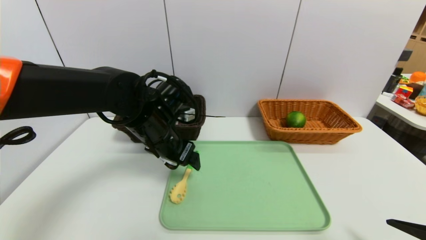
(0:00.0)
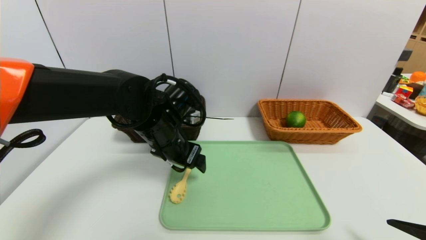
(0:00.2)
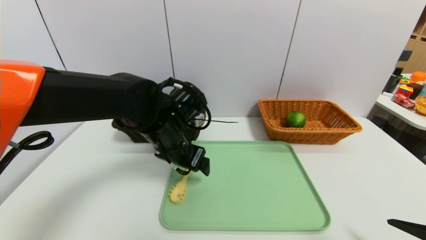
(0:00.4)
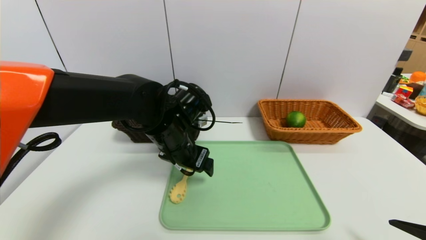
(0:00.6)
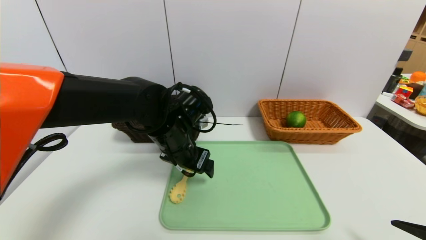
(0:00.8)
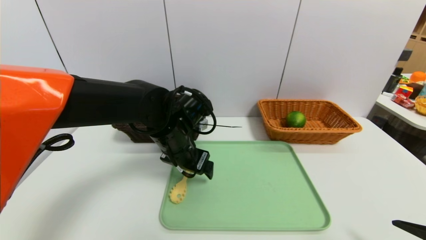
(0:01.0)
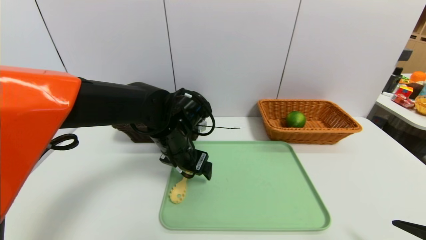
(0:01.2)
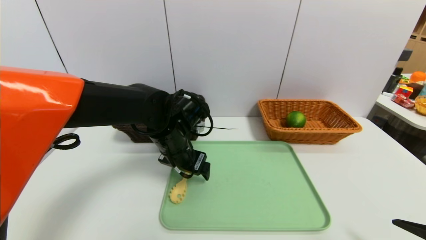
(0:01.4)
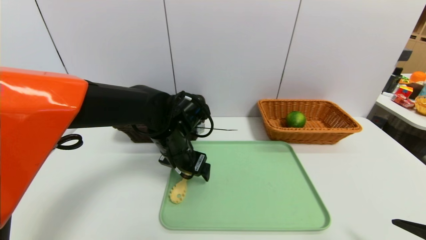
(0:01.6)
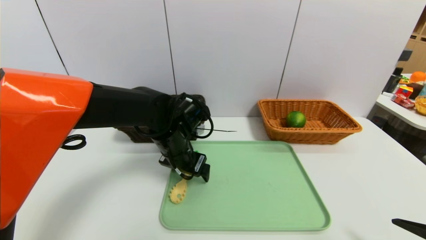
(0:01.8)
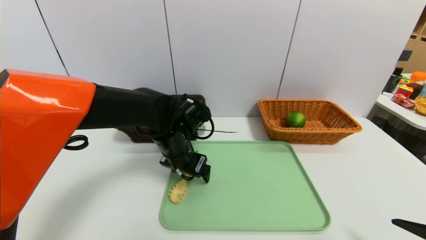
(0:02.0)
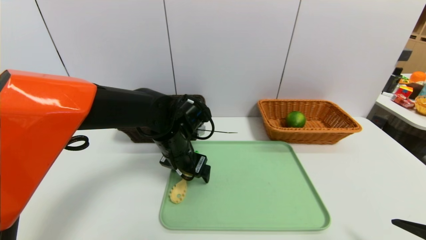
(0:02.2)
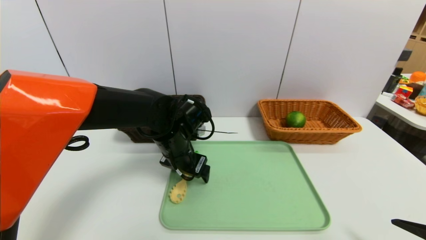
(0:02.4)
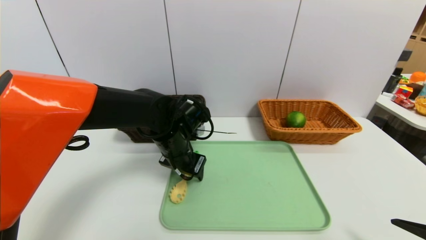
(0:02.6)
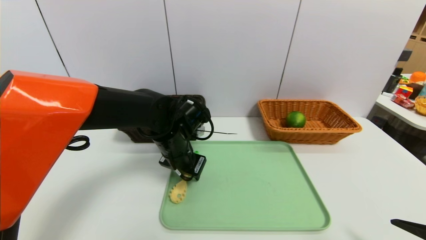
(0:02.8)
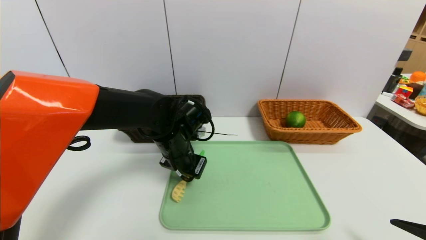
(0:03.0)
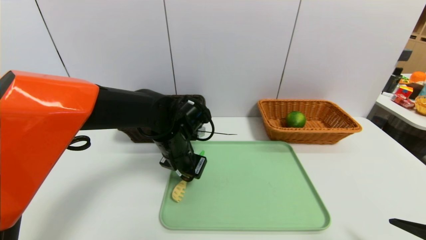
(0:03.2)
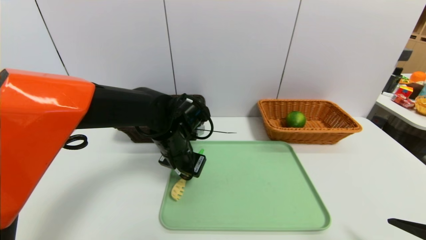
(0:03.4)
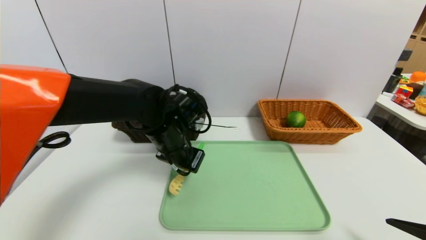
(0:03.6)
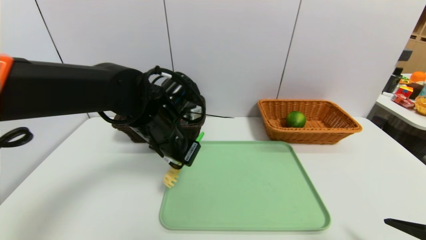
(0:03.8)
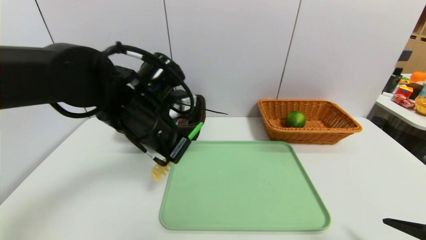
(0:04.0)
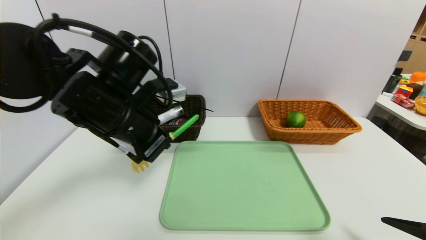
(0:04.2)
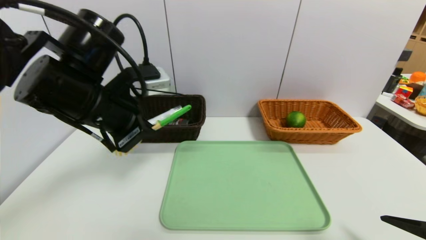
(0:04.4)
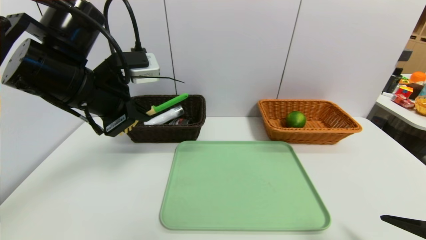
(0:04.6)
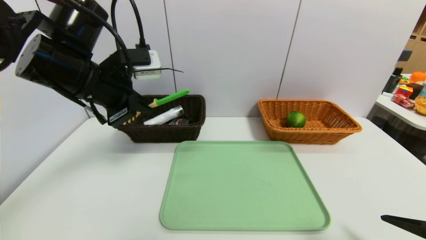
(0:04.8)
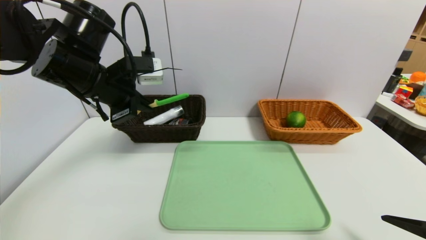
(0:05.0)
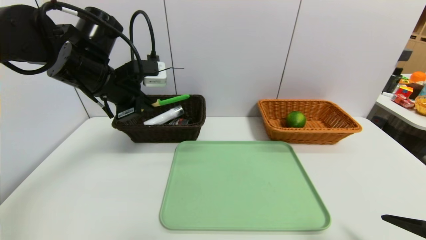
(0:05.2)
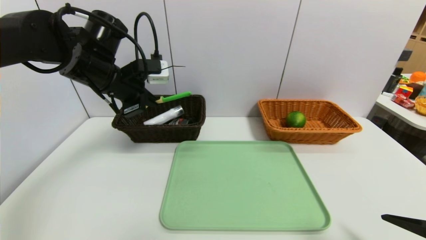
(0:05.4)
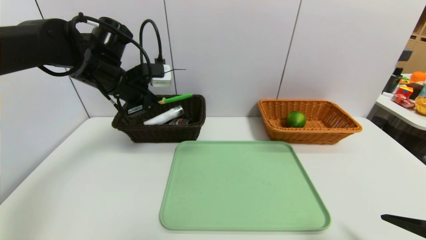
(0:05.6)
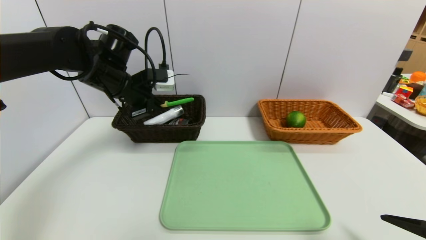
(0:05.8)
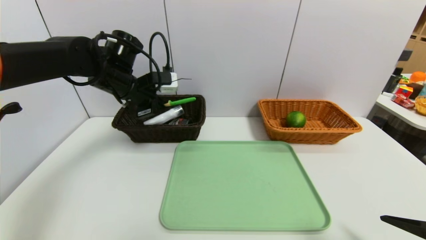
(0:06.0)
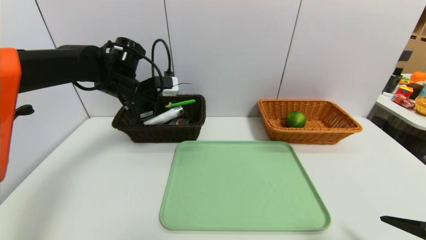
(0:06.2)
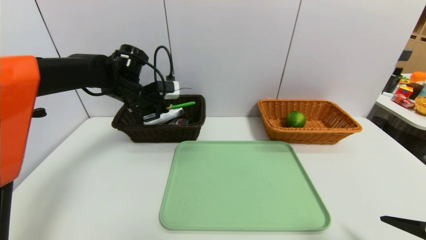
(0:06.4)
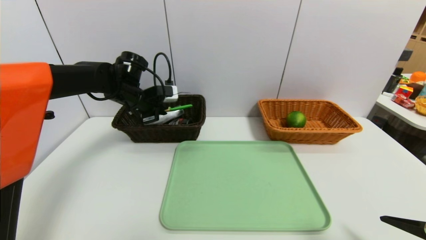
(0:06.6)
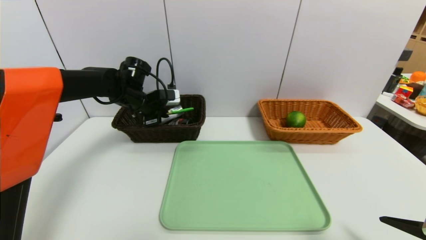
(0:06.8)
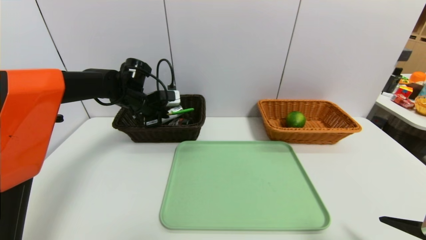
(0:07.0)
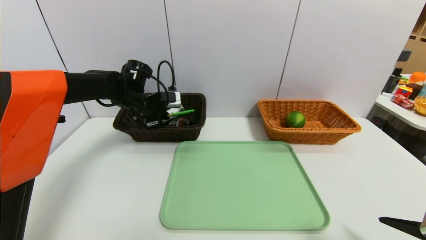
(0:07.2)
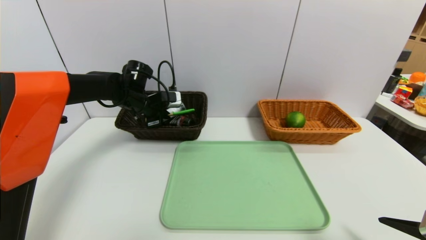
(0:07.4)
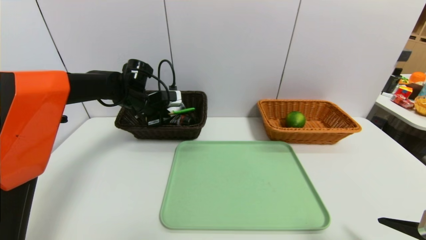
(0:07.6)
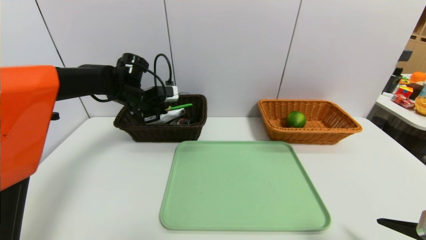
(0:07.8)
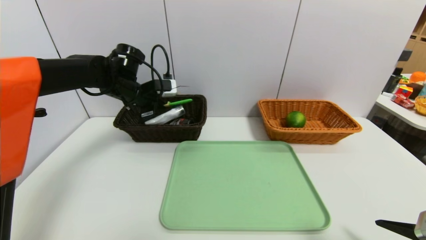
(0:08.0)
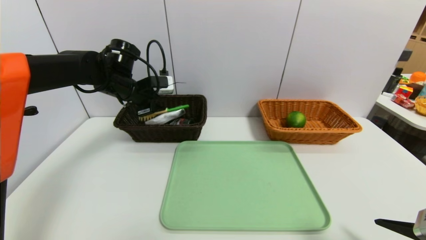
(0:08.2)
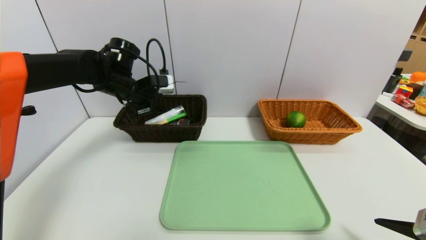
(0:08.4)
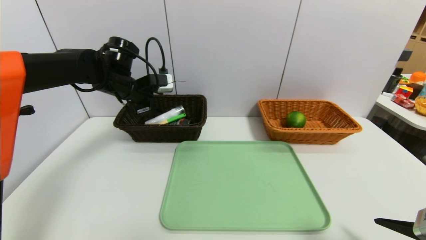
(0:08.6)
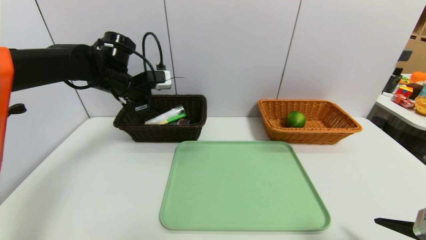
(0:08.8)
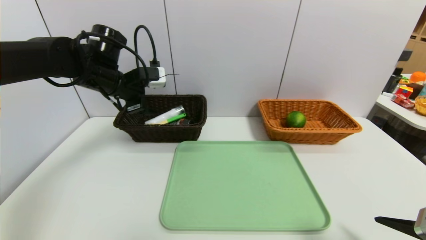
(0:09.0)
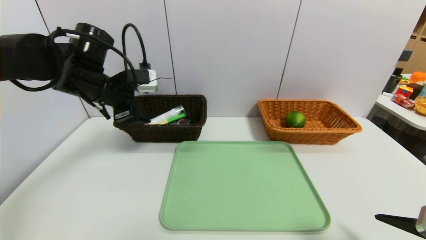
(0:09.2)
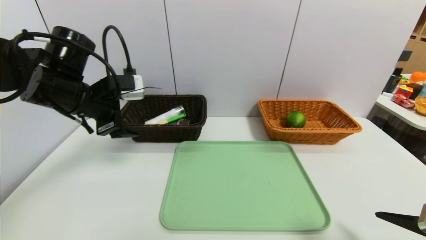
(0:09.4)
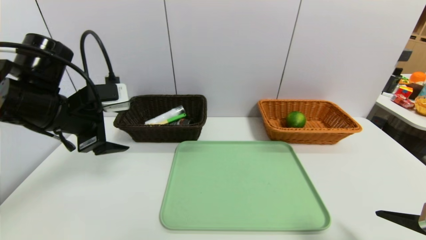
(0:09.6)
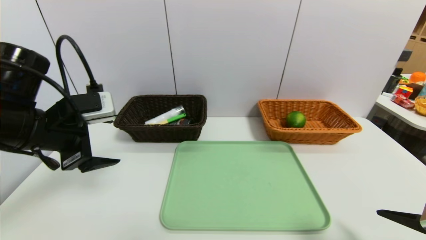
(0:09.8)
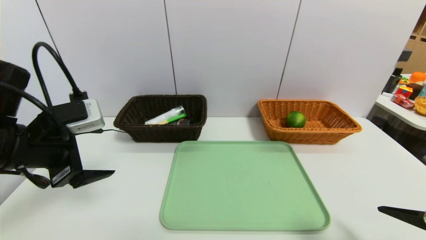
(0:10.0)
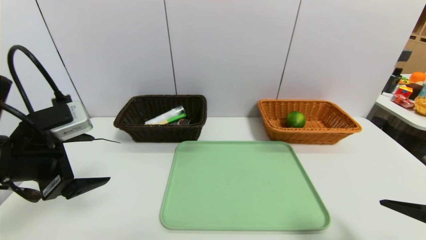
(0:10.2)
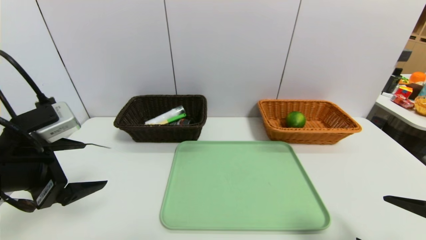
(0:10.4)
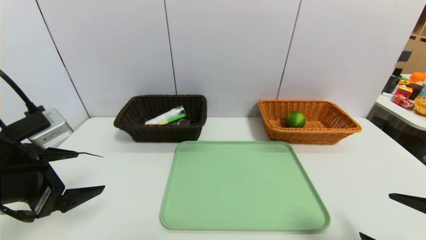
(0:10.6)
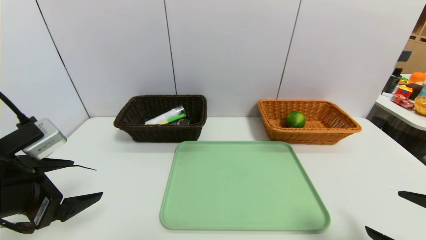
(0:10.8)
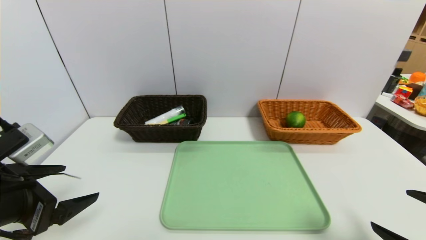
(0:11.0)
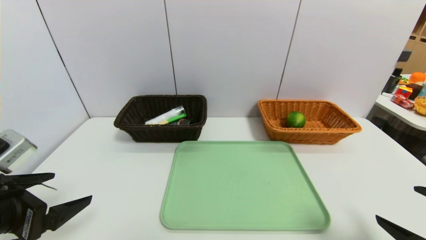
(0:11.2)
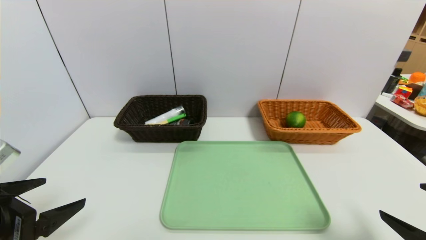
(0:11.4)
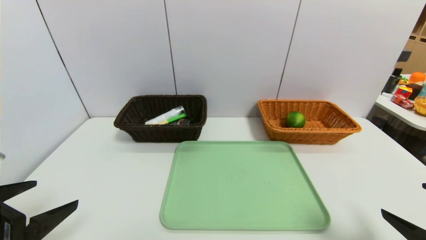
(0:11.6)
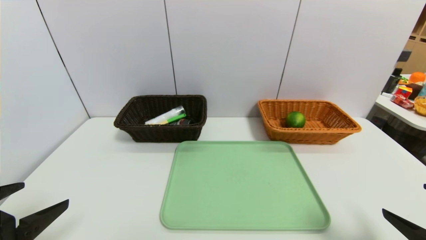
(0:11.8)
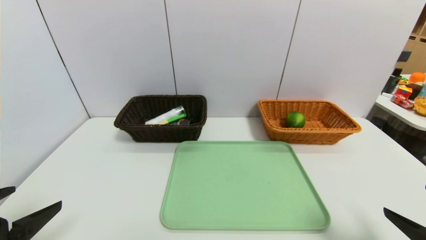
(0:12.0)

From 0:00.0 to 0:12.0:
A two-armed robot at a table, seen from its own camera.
Task of the whole recording: place the food in the right basket with the right gripper, and place the non food items in the left basket with the left gripper.
Step, from 0:00.0 to 0:09.4: Grasp the back scratcher and put it in the left basket.
From 0:00.0 to 0:01.6: The grippers make only small movements.
From 0:01.6 to 0:03.0: The left gripper closes up.
From 0:03.0 to 0:04.4: The left gripper goes roughly 20 cm upward, to the left and backward.
From 0:04.4 to 0:06.0: The left gripper heads forward, covering roughly 15 cm.
From 0:06.0 to 0:07.6: The left gripper shifts about 10 cm downward and forward.
From 0:07.6 to 0:09.0: The left gripper shifts approximately 10 cm upward and backward, and opens.
From 0:09.0 to 0:10.4: The left gripper travels backward by some 20 cm.
From 0:10.4 to 0:12.0: The left gripper is displaced backward by some 10 cm.

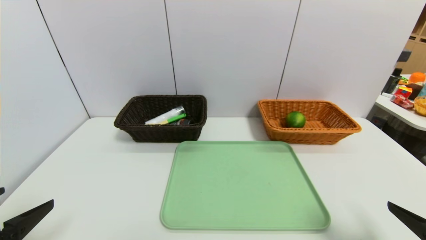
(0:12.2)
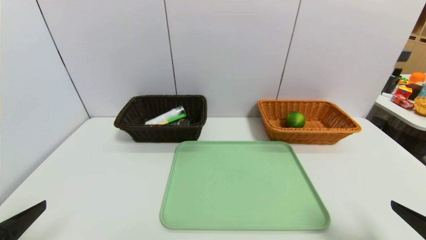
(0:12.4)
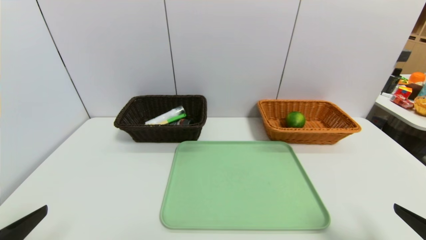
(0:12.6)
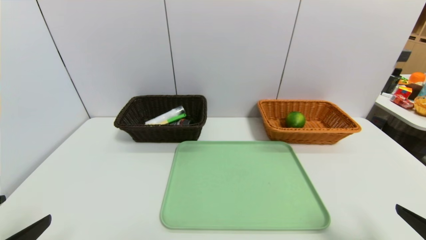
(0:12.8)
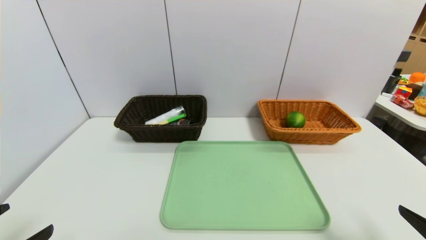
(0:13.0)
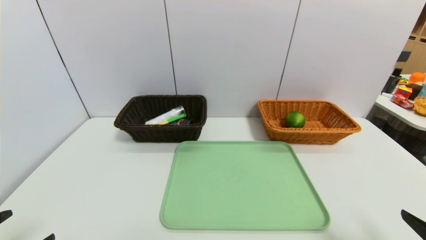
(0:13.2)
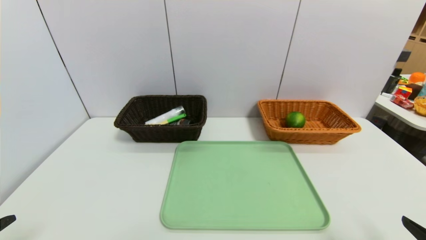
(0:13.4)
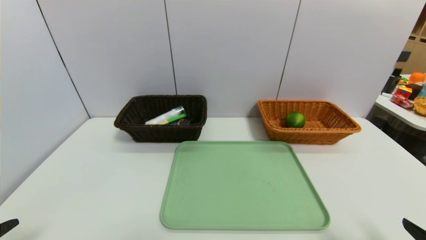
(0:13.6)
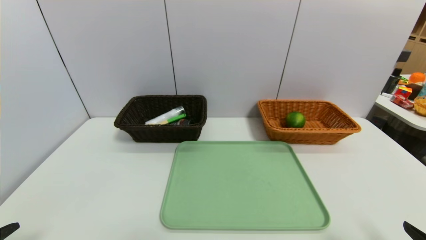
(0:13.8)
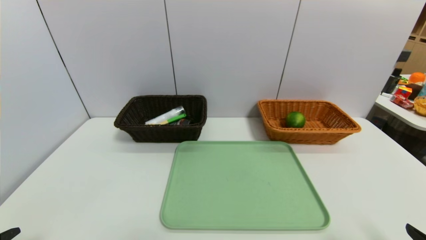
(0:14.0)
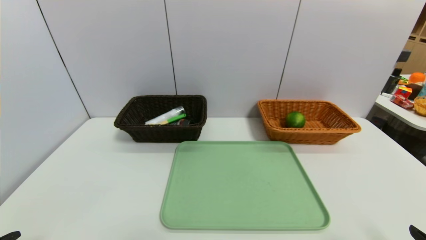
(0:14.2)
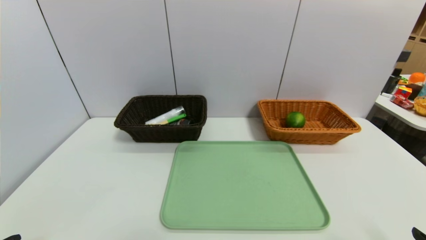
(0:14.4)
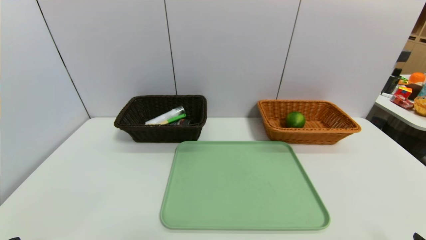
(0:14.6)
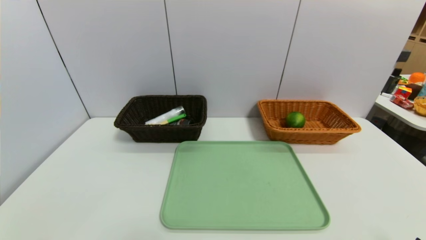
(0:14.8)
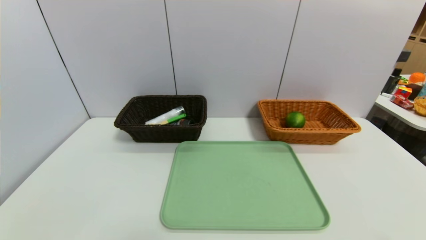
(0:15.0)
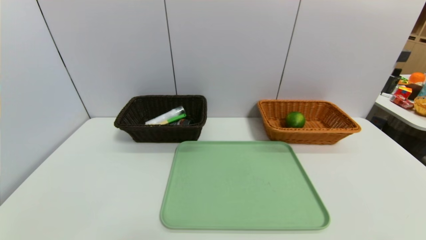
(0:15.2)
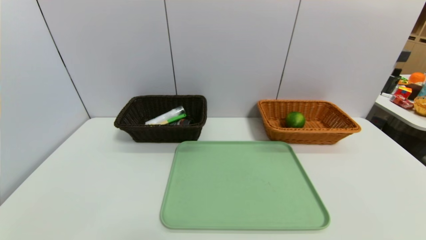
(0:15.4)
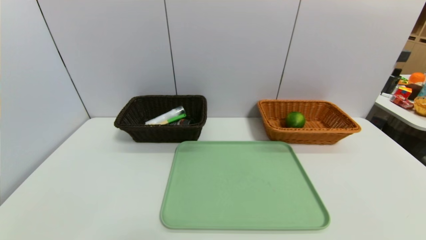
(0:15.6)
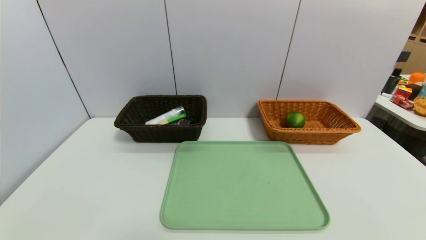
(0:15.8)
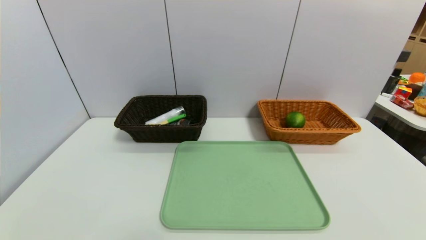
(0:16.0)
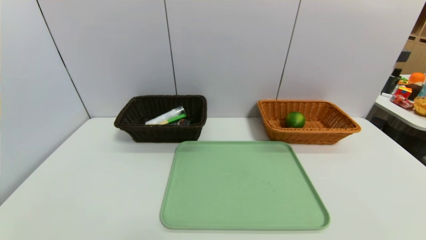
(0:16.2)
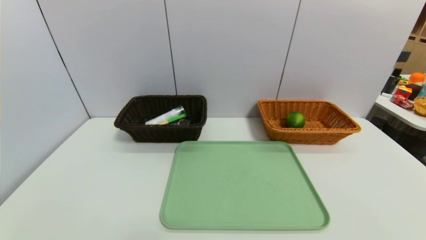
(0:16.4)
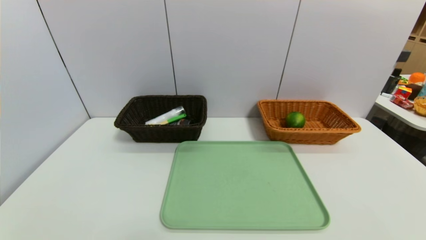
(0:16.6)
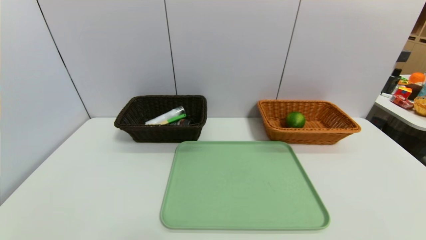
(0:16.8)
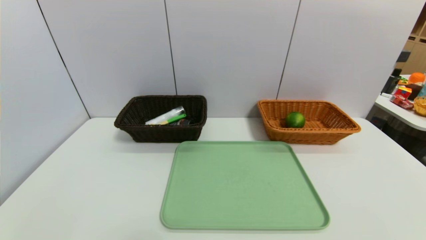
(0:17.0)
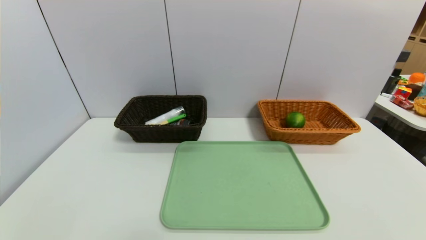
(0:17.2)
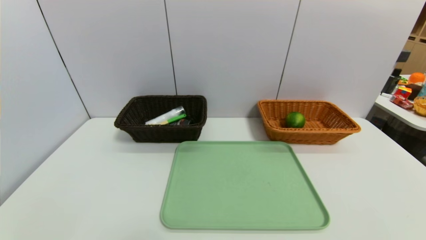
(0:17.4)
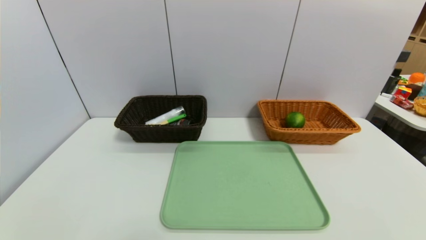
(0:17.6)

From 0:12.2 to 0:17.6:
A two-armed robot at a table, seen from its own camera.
Task of the whole recording: place the food in the right basket with the right gripper, and place the non food items in the left basket with the left gripper.
From 0:12.2 to 0:13.6: The left gripper shifts by roughly 5 cm.
